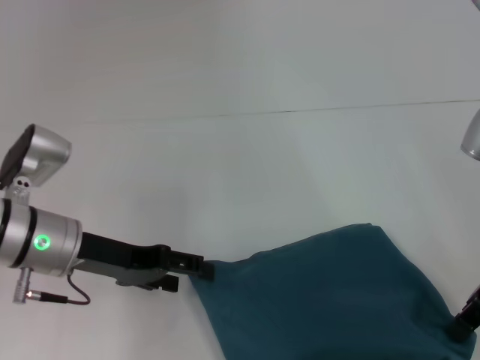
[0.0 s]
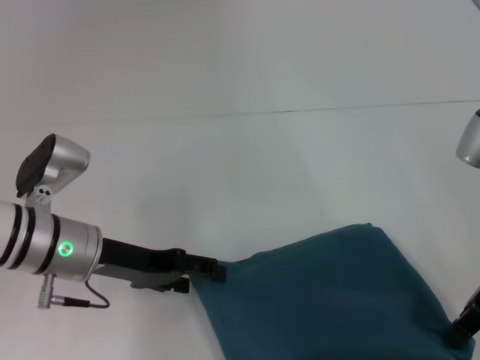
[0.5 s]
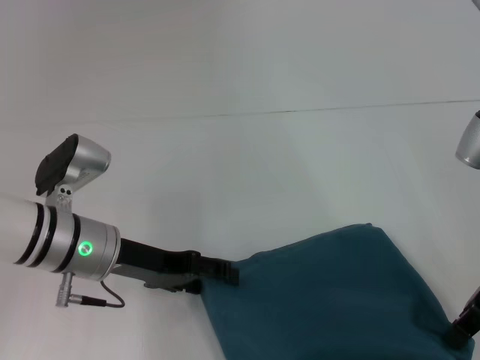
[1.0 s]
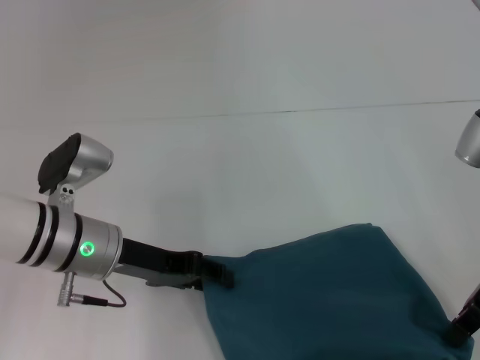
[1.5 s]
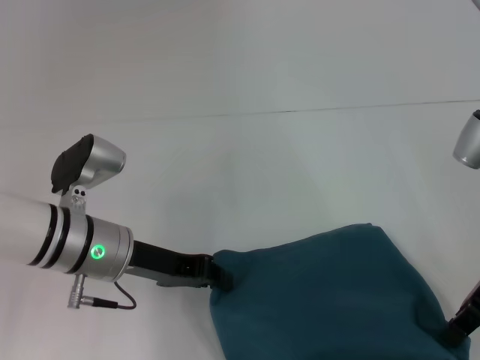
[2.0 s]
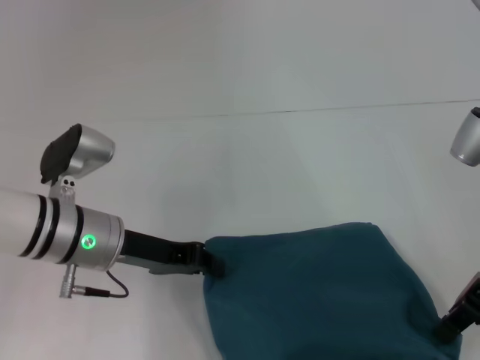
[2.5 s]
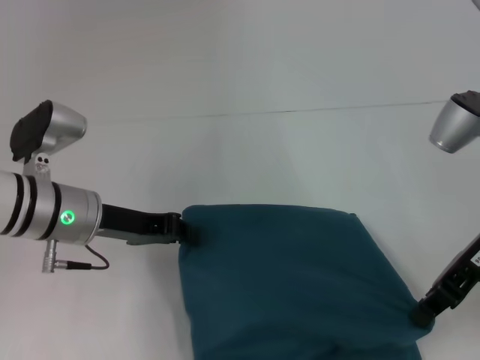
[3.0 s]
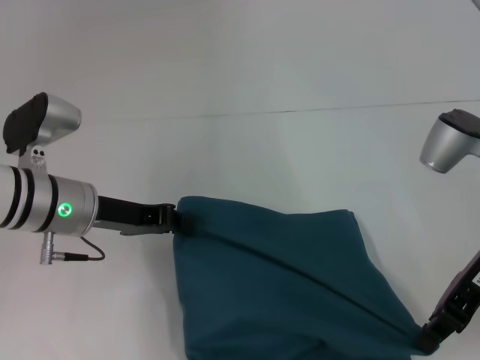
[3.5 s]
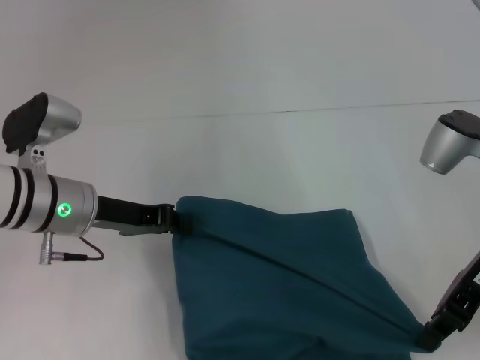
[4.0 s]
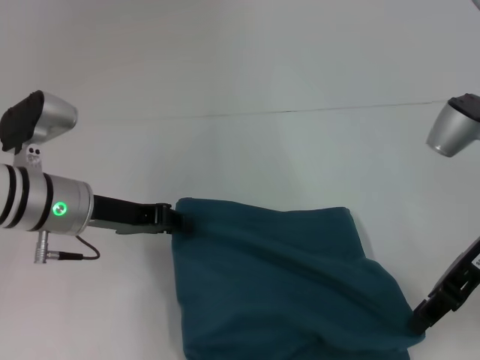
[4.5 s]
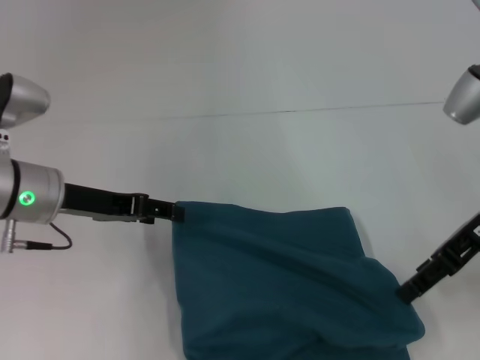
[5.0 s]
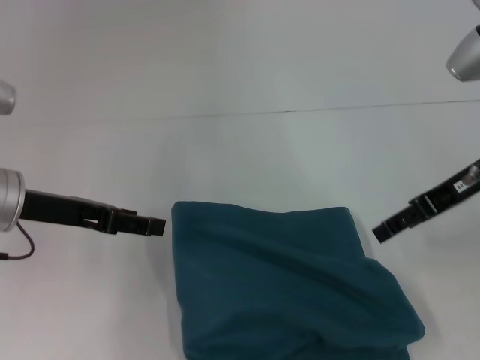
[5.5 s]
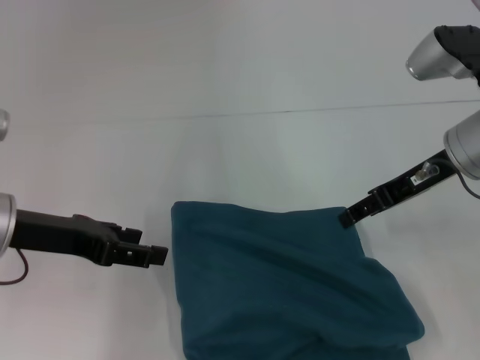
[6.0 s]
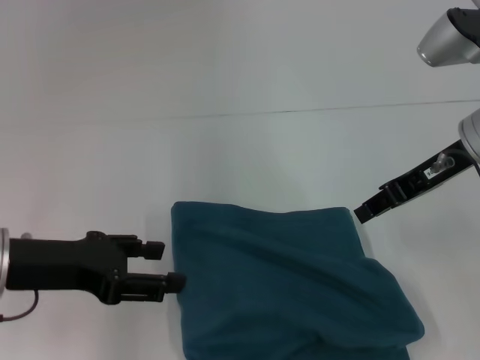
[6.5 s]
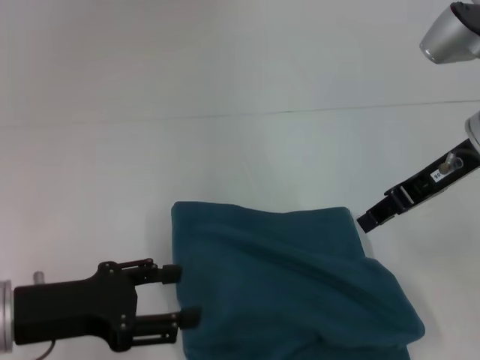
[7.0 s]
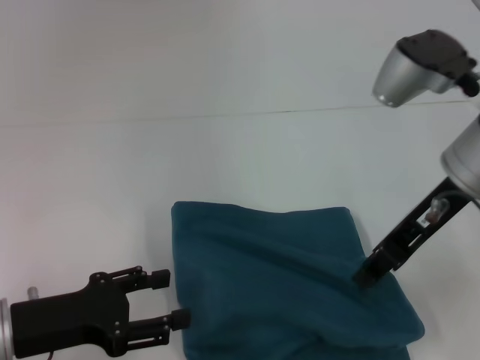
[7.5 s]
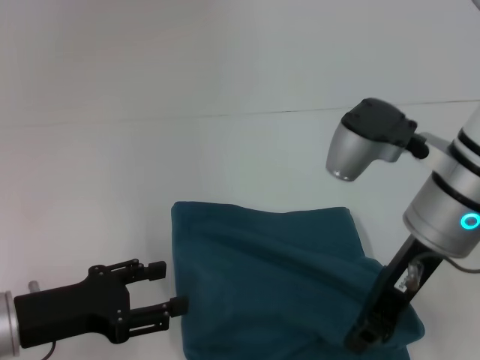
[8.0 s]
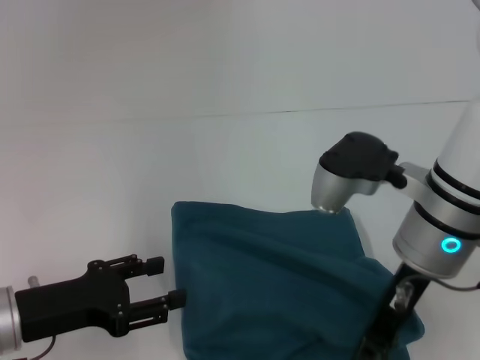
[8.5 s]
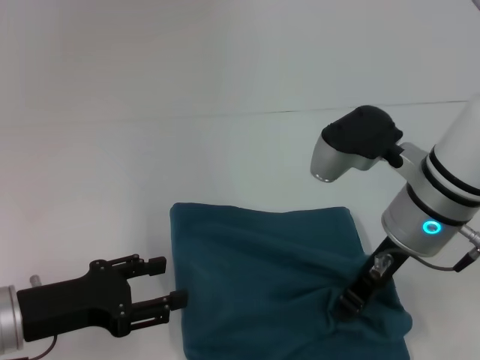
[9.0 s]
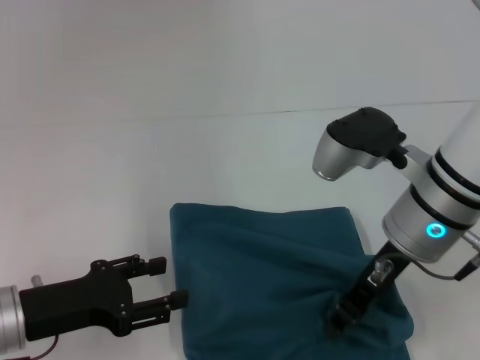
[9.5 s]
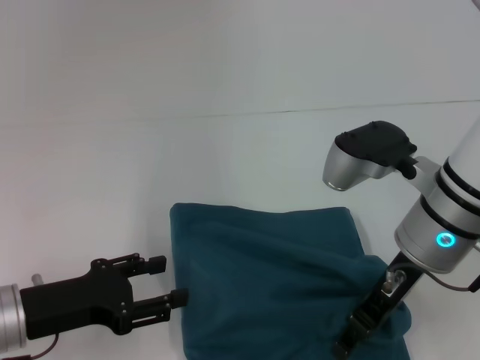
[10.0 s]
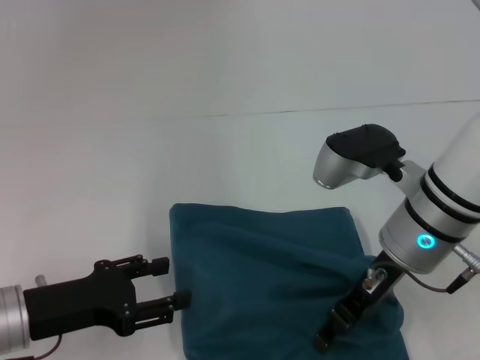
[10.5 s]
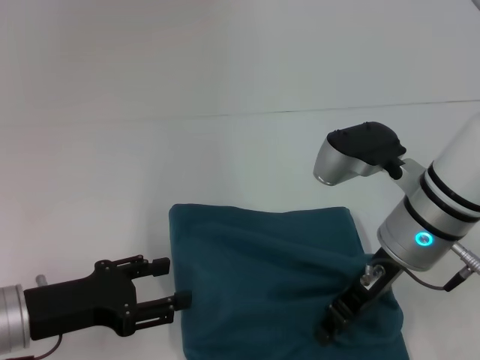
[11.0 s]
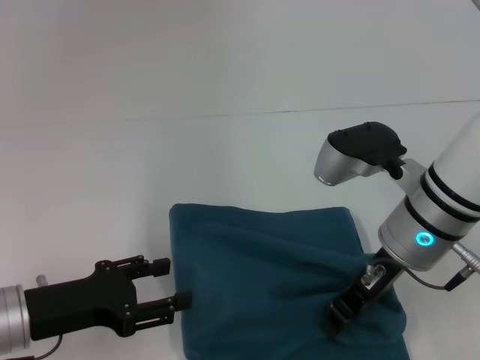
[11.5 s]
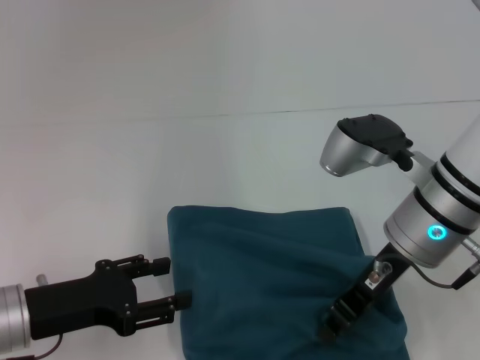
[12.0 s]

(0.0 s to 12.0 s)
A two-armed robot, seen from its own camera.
0.0 s - 2.0 s: The left gripper closes its fingers.
4.0 s - 6.0 s: The left gripper shifts some 5 cm to the left, and opens. Meanwhile the right gripper goes some 5 cm forward, and opens up.
6.0 s - 8.0 s: The left gripper moves backward and downward, roughly 10 cm. The right gripper goes approximately 10 cm to the left and backward, and closes its fingers.
8.0 s - 12.0 s: There are only small adjustments of the grippers.

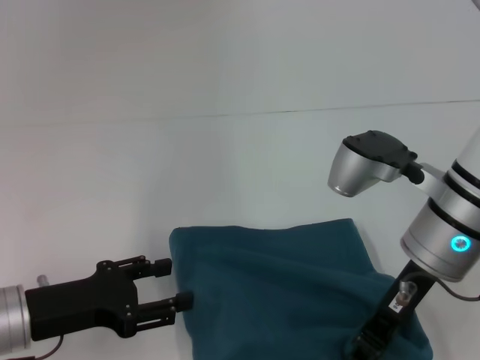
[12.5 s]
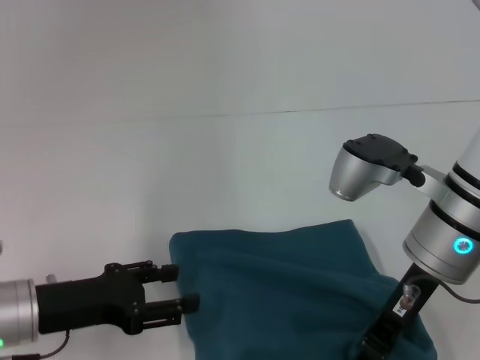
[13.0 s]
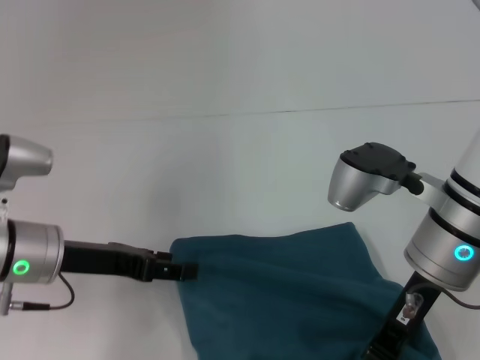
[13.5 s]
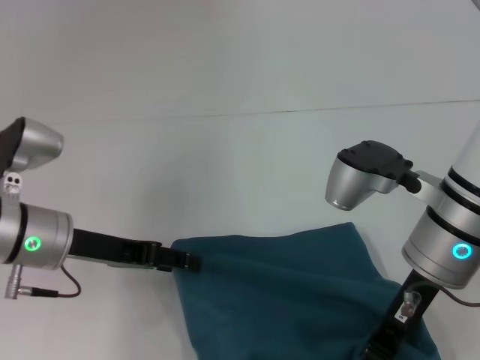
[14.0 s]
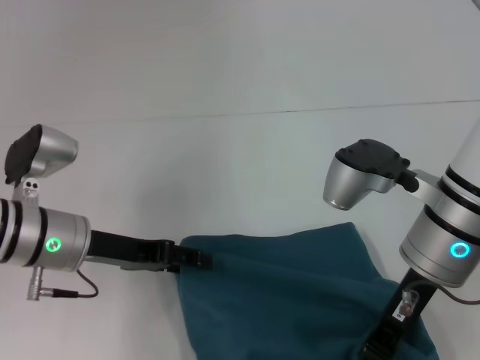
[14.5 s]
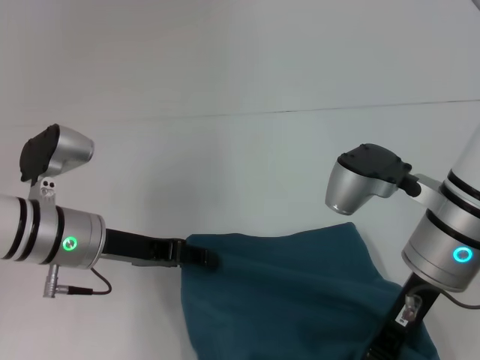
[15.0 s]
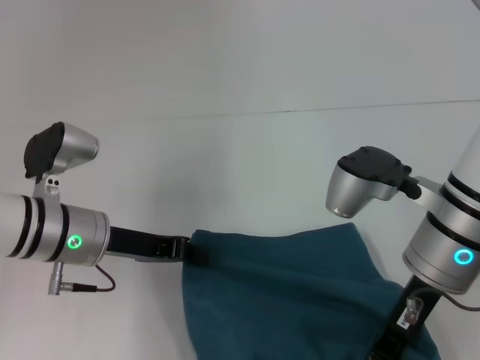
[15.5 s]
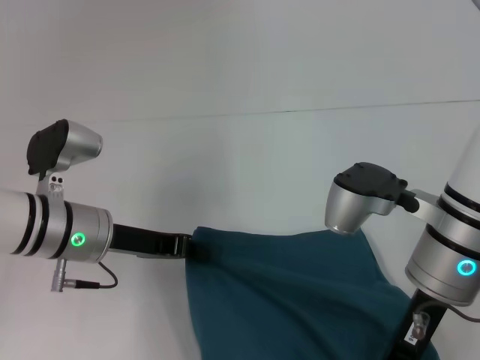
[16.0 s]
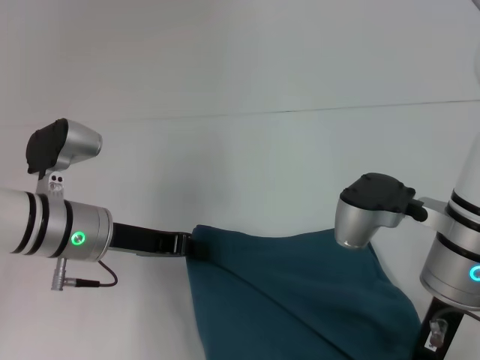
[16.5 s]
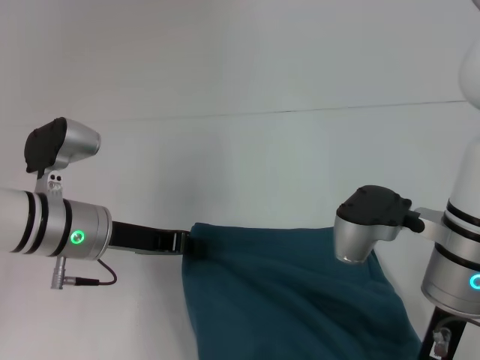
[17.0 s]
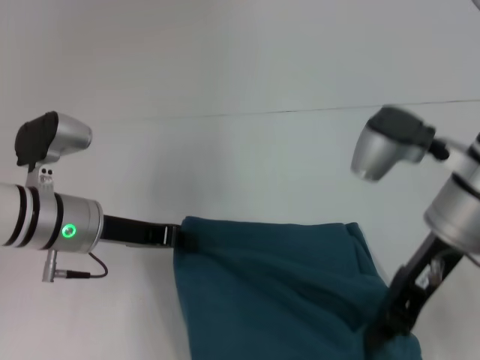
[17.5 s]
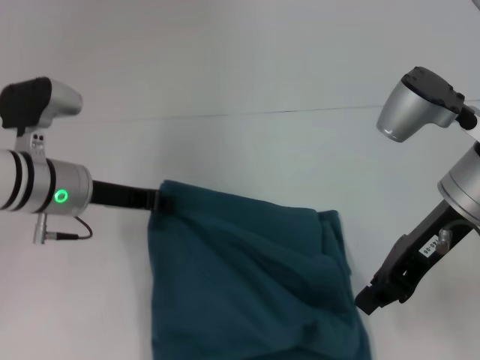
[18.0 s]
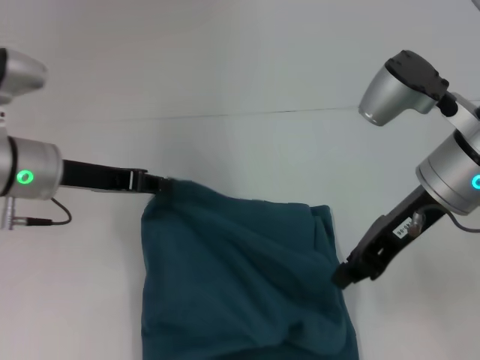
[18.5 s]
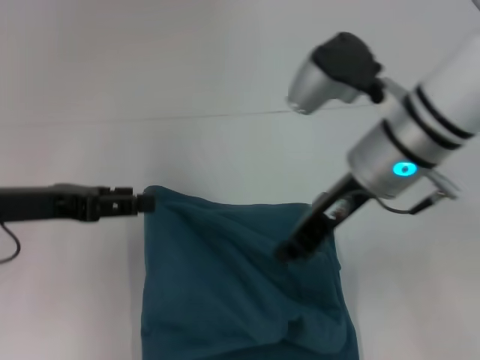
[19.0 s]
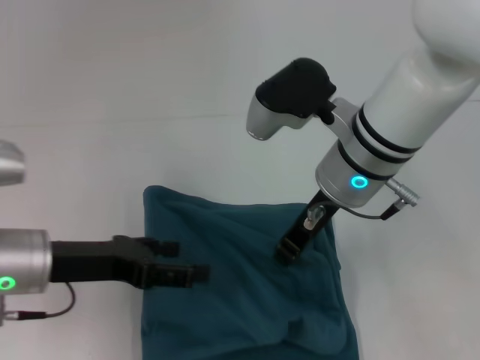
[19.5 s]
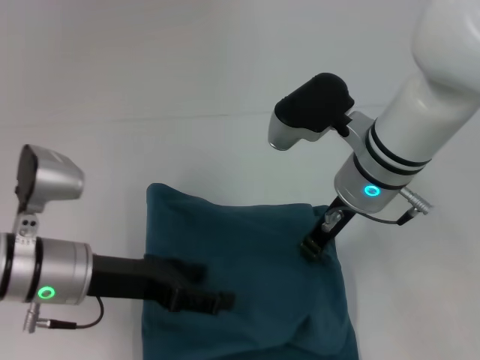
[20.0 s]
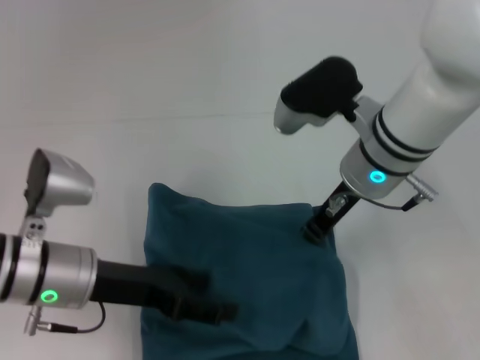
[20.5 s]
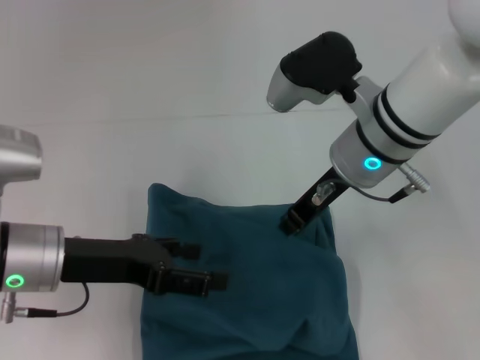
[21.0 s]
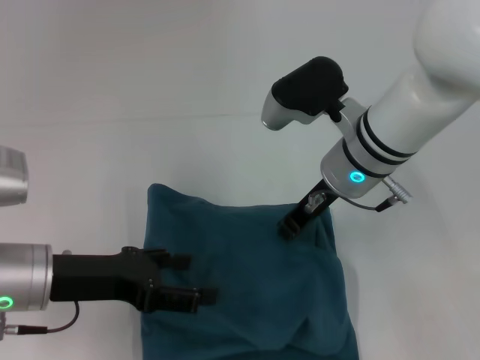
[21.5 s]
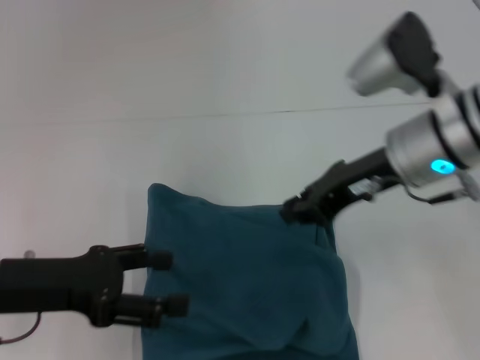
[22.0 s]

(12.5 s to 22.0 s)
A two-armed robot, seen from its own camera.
12.5 s - 14.5 s: The left gripper shifts approximately 10 cm forward.
14.5 s - 16.5 s: The left gripper closes its fingers.
16.5 s - 18.0 s: The right gripper shifts by some 5 cm.
18.0 s - 20.0 s: The left gripper travels backward by about 10 cm, and opens. Meanwhile the right gripper is displaced to the left by about 10 cm.
20.0 s - 22.0 s: The left gripper travels to the left by approximately 5 cm; the right gripper is displaced to the right by approximately 5 cm.

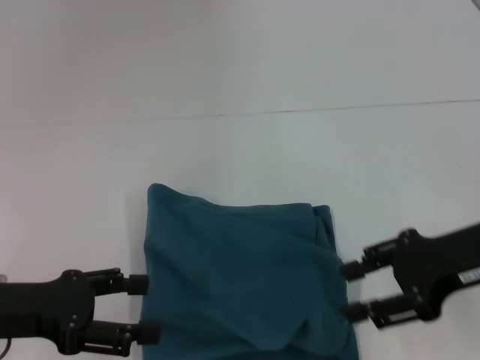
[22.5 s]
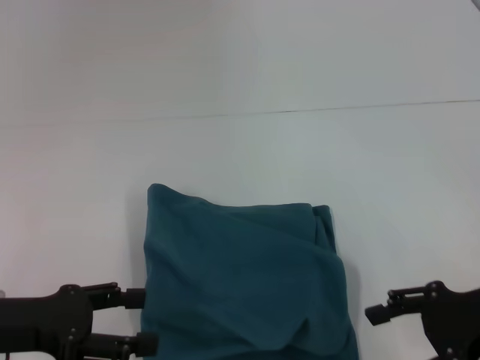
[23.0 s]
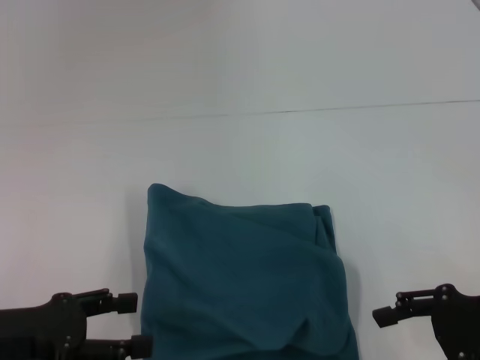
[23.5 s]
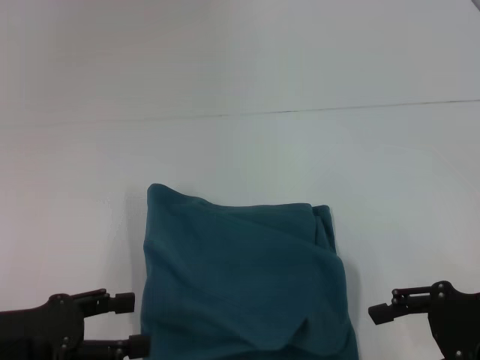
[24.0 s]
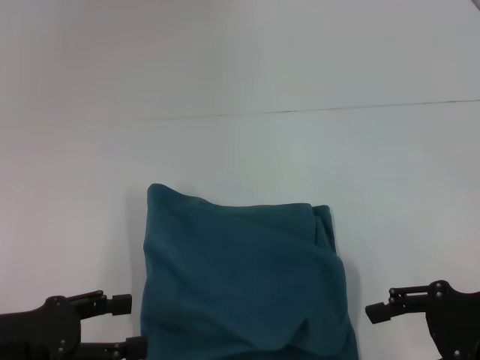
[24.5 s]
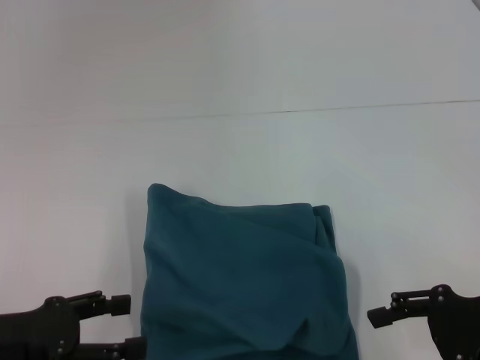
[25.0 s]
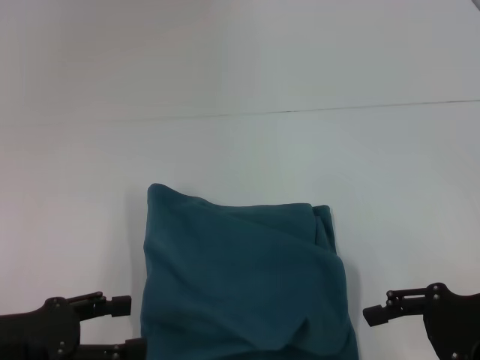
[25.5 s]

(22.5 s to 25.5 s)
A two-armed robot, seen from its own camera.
22.5 s - 24.0 s: The right gripper moves some 5 cm, and opens.
24.0 s - 25.5 s: Neither gripper changes place.
